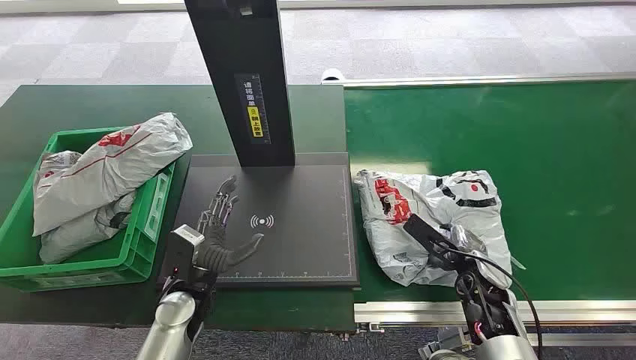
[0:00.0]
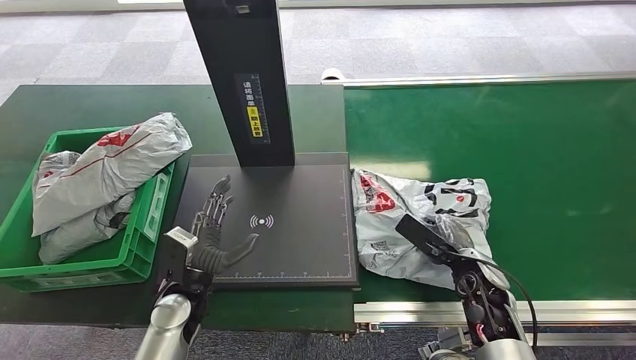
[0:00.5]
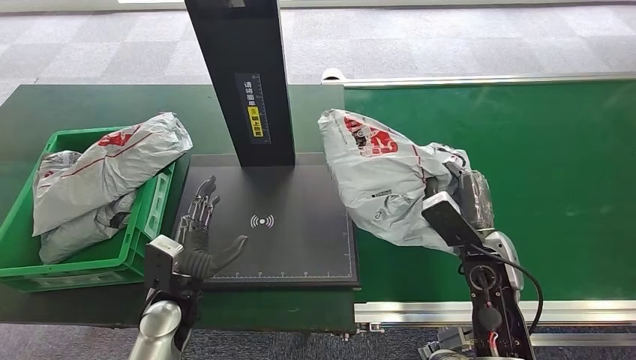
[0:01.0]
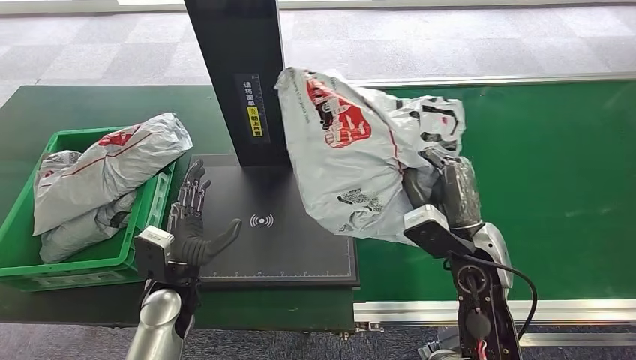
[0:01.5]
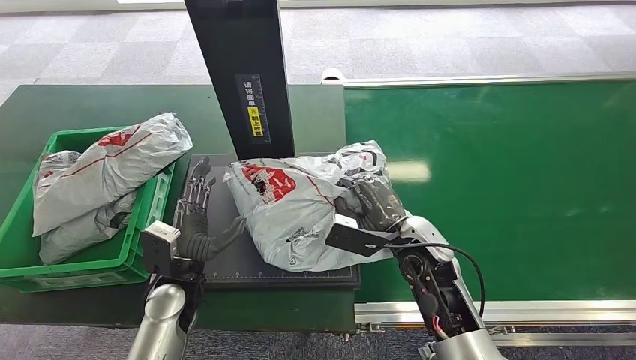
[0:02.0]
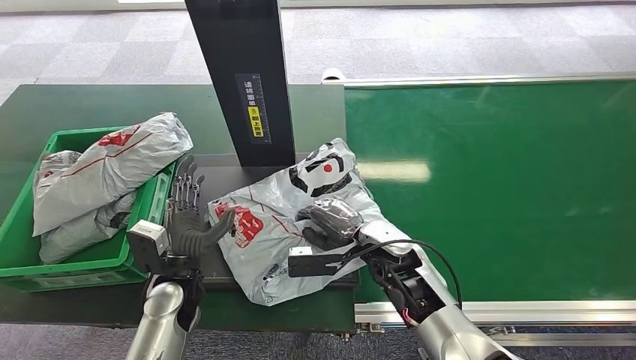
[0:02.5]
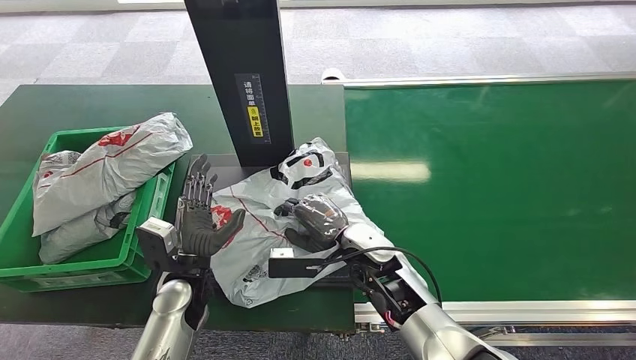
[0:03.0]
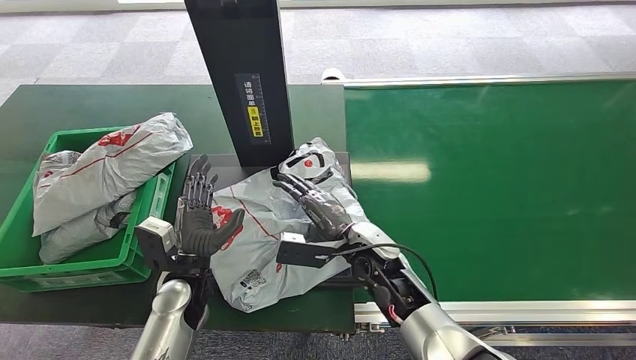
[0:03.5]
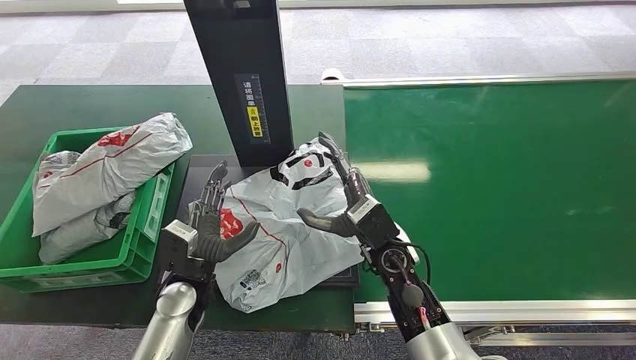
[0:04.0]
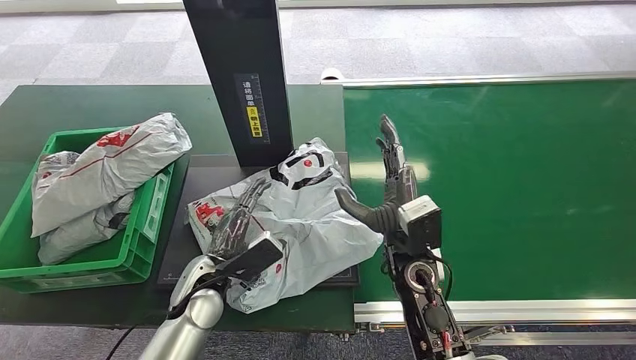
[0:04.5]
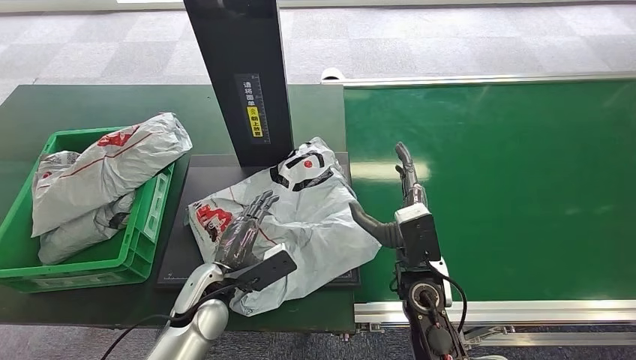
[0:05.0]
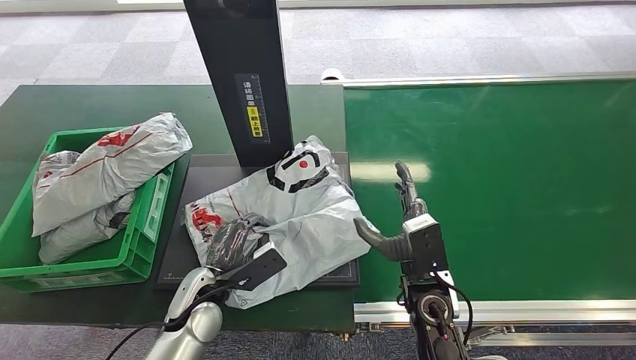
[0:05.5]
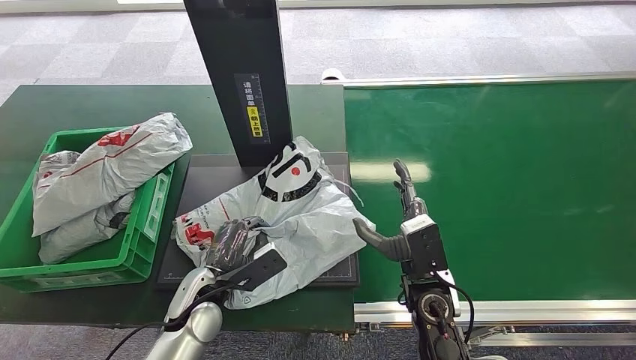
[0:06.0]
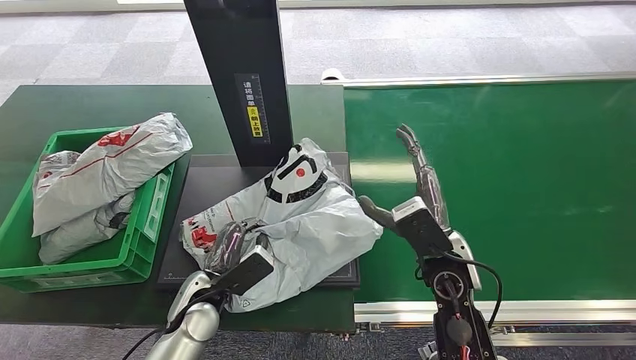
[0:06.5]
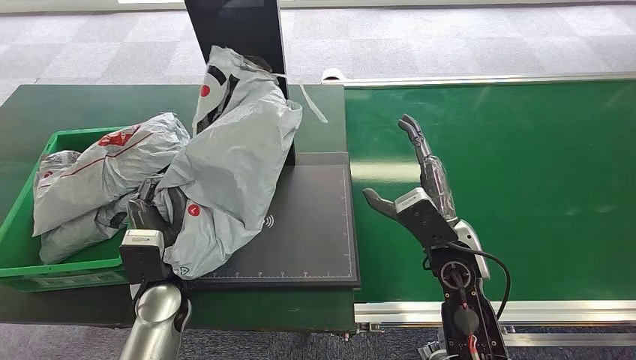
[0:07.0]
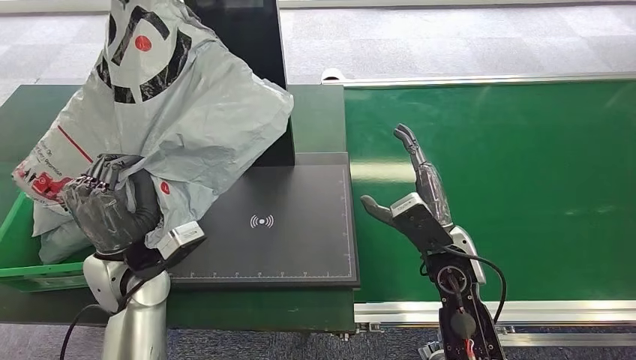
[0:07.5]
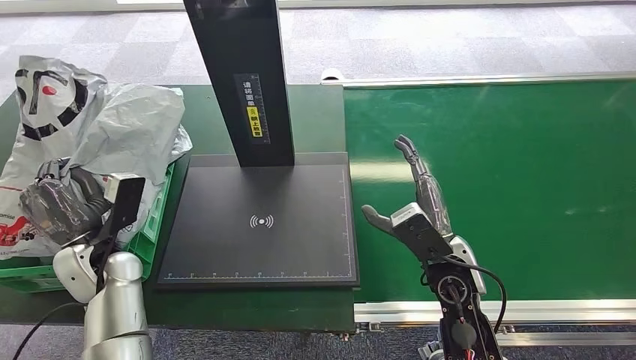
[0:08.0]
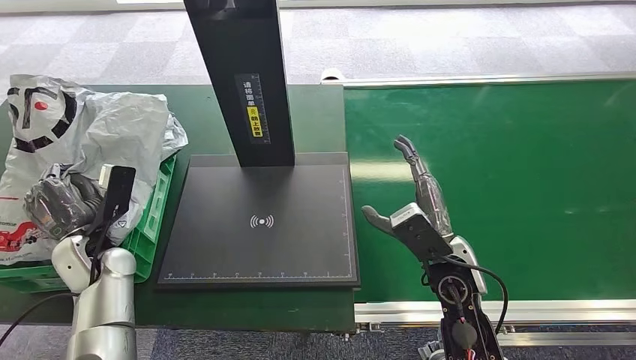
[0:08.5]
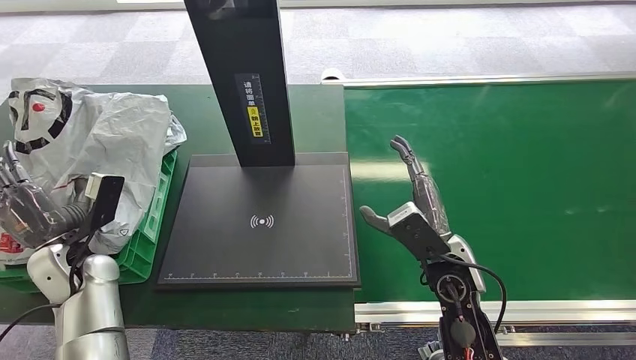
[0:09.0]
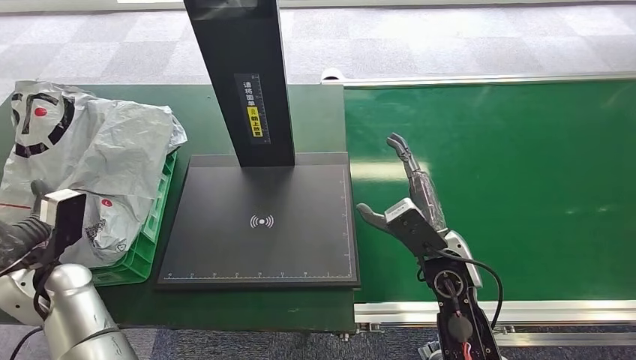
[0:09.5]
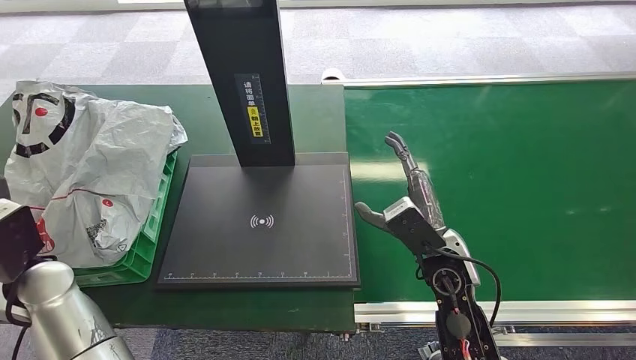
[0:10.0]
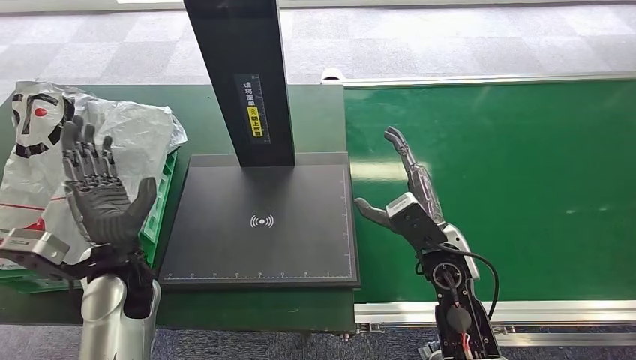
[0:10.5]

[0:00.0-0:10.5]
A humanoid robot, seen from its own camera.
Step, 0:00.0 to 0:01.0: Pick up the package from the conveyor belt.
Step, 0:01.5 to 0:03.5: Place the package onto the inbound machine.
Step, 0:04.0 to 0:07.0: Pick up the package from the inbound machine.
Step, 0:07.5 to 0:10.5: Place the package into the parcel locker.
0:02.0 to 0:04.0: The right hand travels to the left by approximately 5 cm.
0:04.0 to 0:06.5: The right hand goes about 5 cm to the right.
0:08.5 to 0:10.5: The left hand travels to the right by roughly 10 cm.
